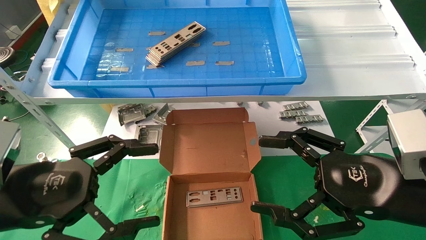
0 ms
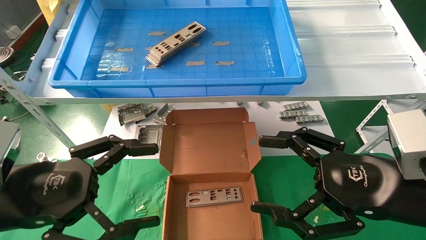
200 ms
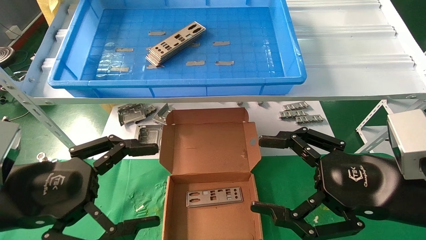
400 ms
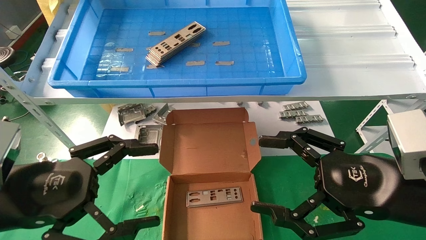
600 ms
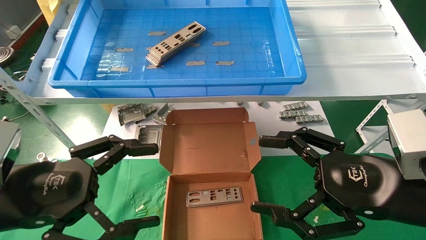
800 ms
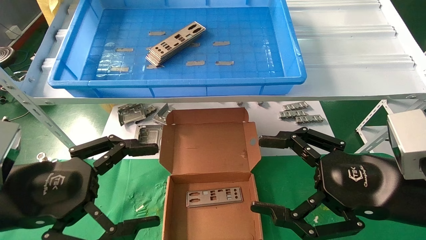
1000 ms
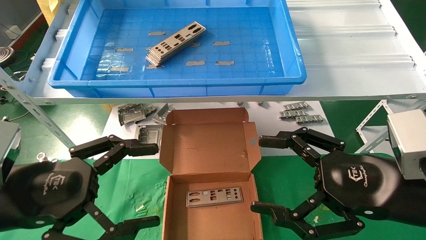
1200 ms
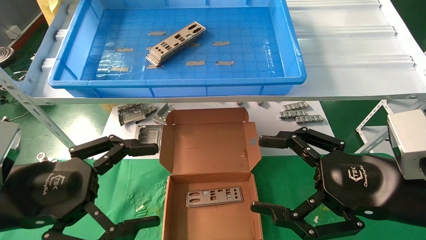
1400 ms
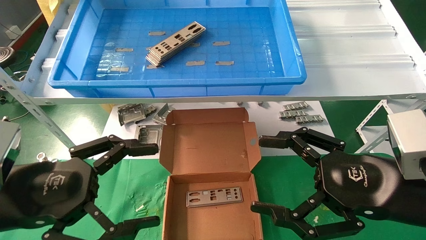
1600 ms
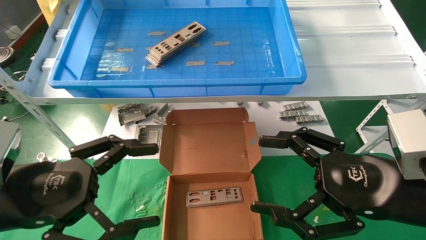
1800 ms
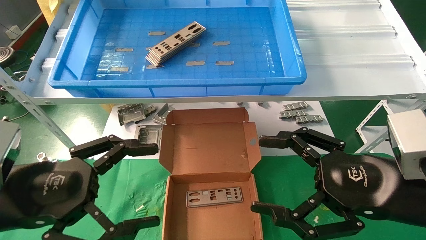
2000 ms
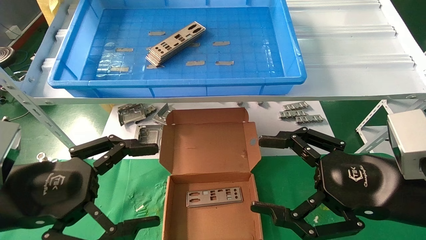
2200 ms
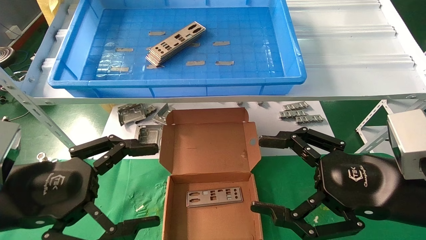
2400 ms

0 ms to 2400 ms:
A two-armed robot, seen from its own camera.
Task of the whole recording: pick up the parts on the tray and put them in the cardboard box.
0 ms to 2400 ms: Both grippers stay put.

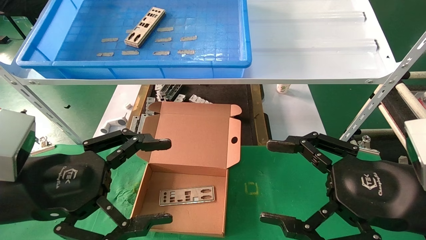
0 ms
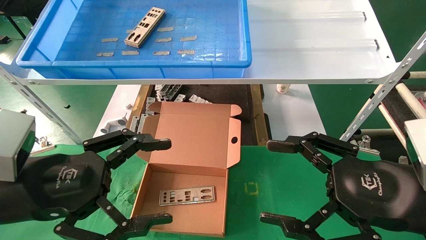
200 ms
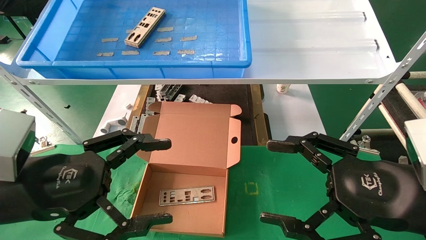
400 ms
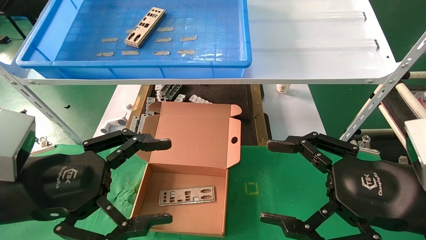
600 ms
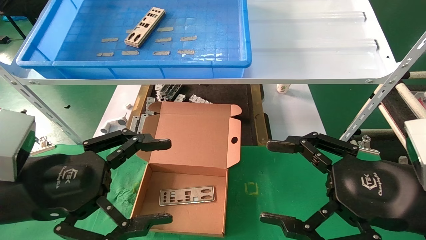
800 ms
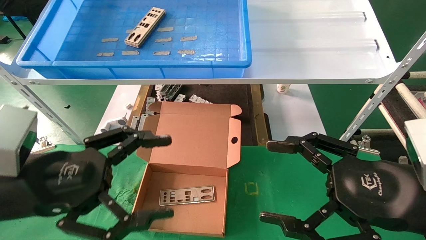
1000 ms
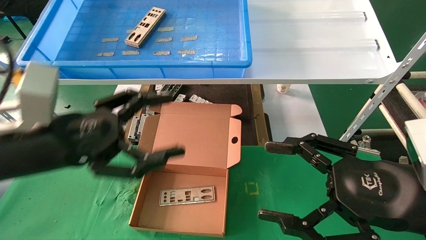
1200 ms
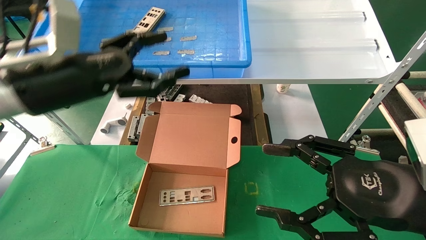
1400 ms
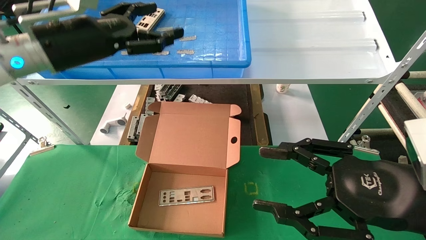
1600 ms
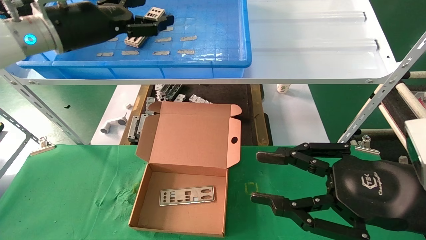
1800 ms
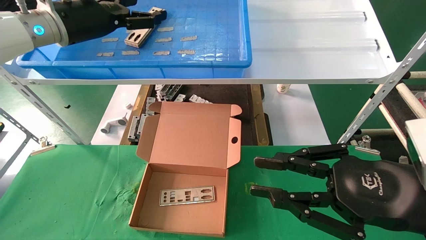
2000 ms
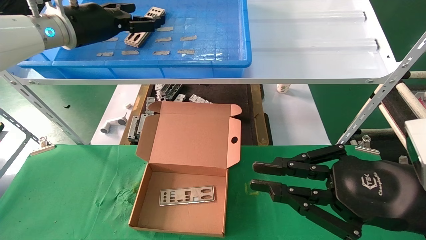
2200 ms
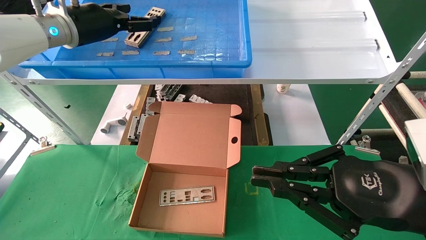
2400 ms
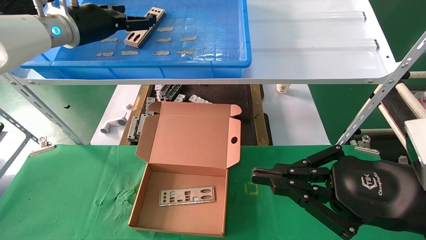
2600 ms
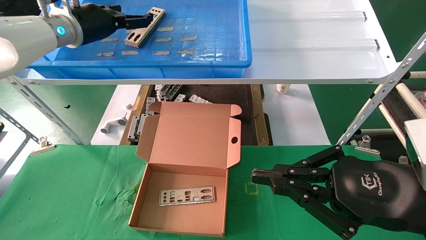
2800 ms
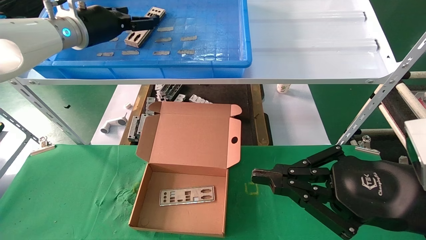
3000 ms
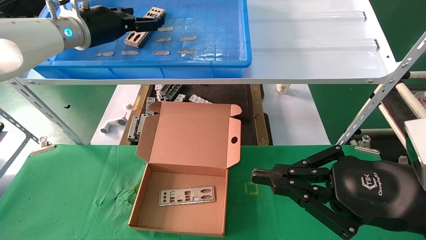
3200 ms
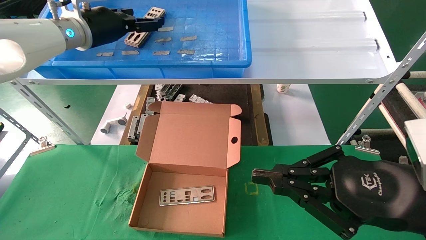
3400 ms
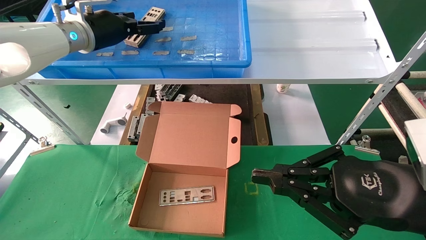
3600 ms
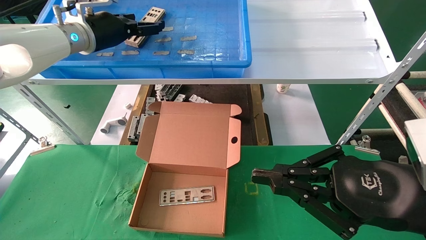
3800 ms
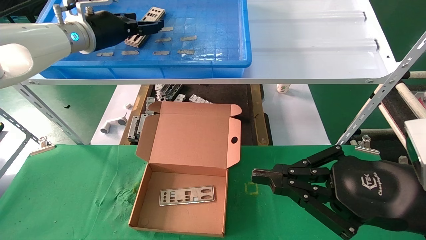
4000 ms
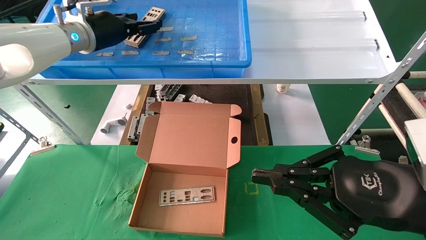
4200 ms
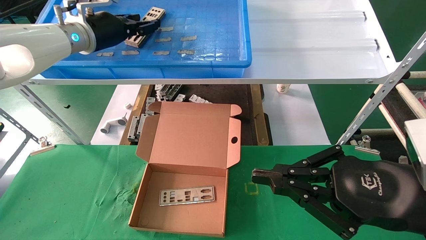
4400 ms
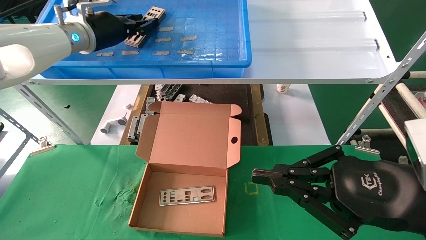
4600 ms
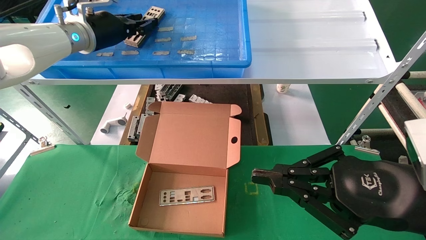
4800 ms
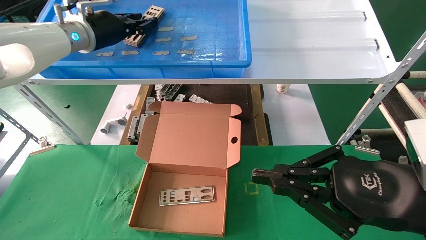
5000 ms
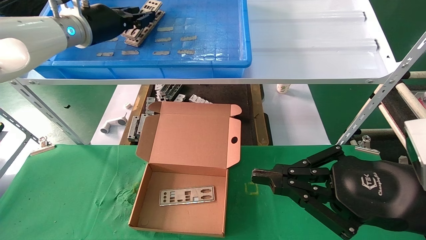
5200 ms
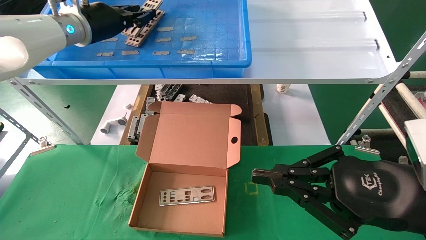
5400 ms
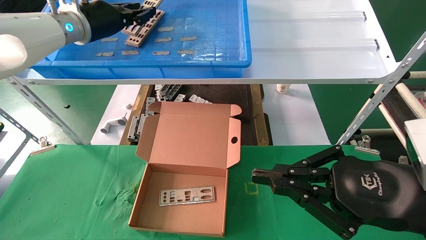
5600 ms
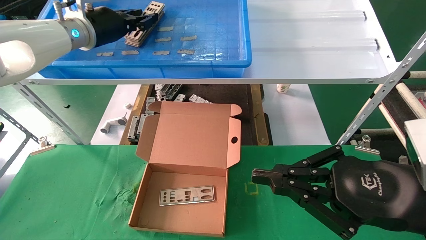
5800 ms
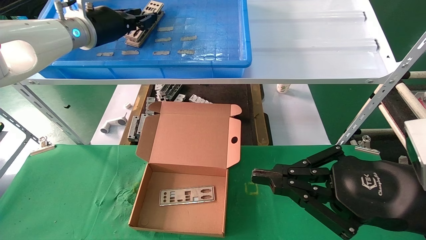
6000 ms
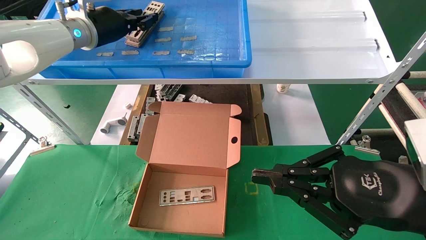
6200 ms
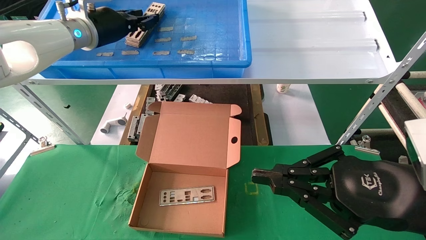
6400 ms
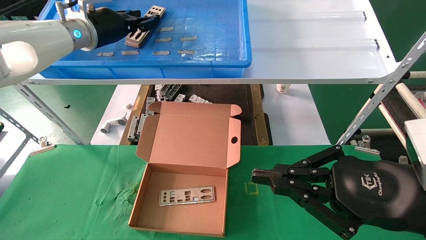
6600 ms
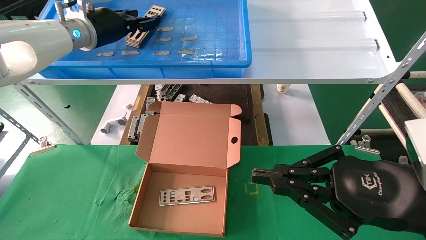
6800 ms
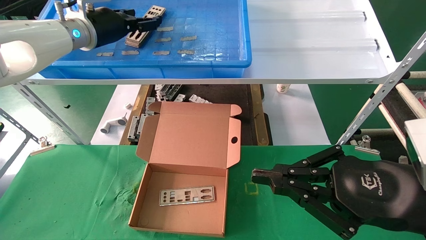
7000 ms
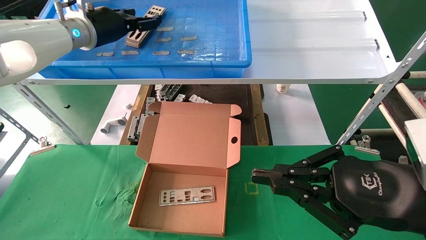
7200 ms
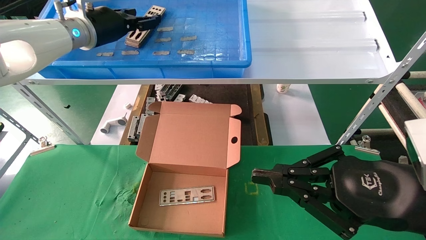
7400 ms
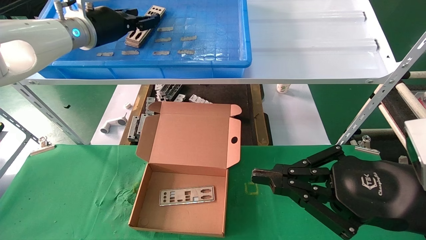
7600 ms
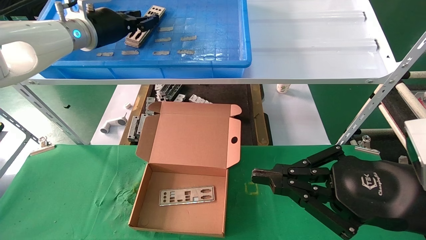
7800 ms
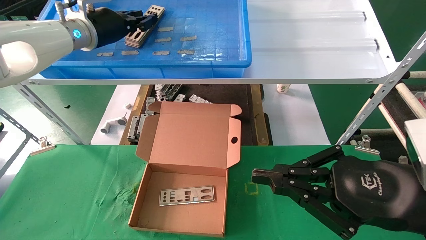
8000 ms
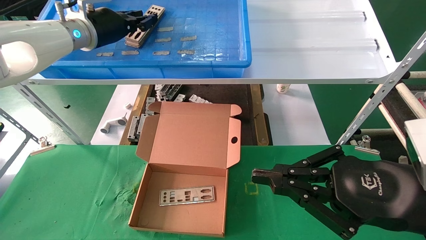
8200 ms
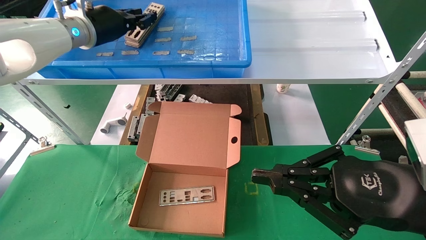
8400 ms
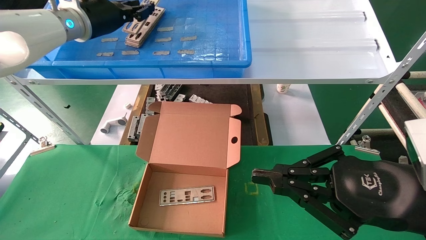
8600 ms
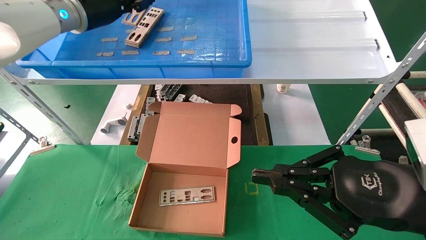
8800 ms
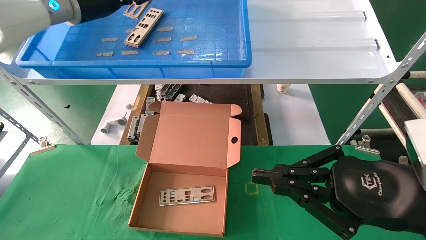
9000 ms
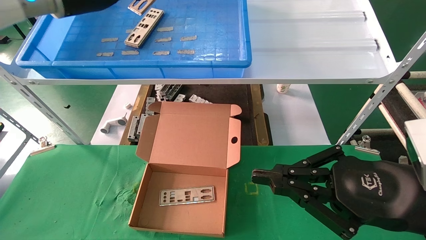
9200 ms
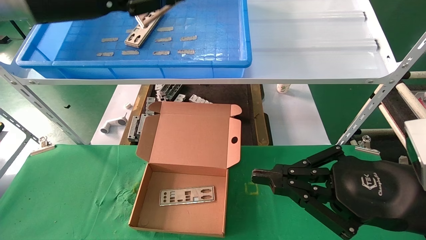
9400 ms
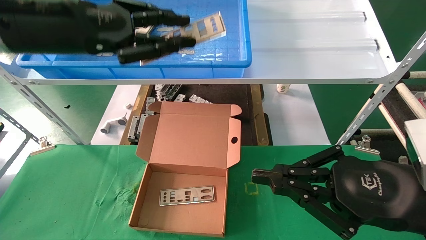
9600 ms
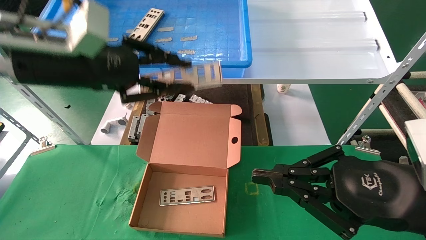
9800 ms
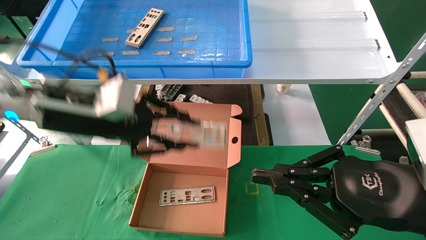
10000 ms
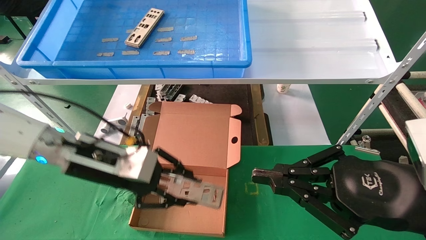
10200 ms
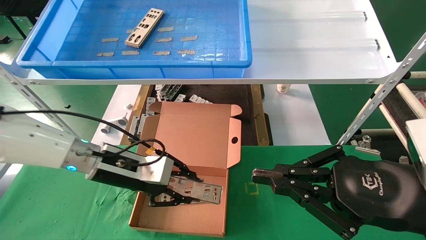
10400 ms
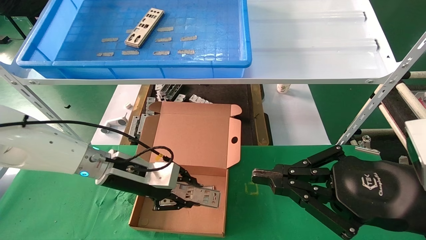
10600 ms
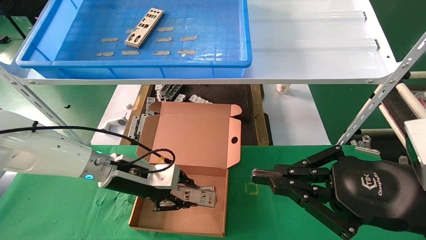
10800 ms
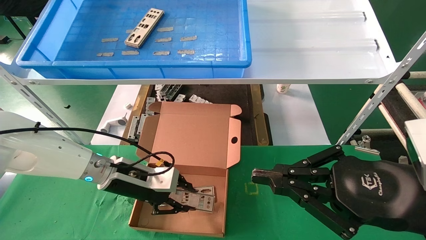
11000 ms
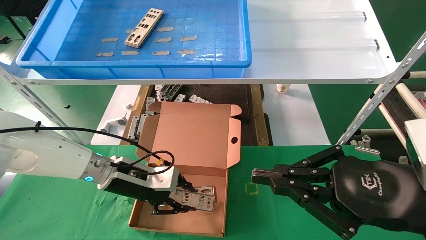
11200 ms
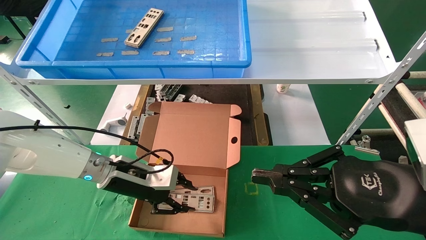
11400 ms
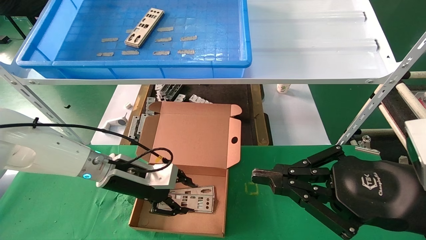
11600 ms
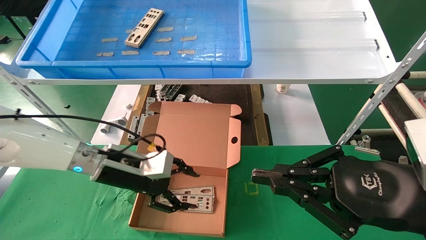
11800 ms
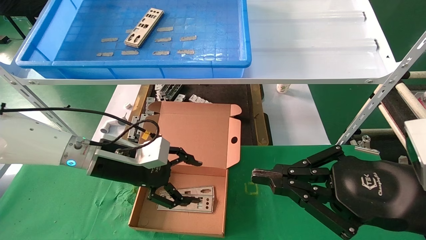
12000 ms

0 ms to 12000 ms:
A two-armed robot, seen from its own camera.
Task of the whole recording: pick up the parts on the tray and put them in the cardboard box.
Step, 1400 ms to 8600 ms: Pick up the IO bracket from the container box.
Step, 8800 ms to 11600 ms: Place the IO bracket into the ingredient slot.
0 ms to 1600 ms: The left gripper goes roughly 20 cm forward and upward.
1600 ms to 3000 ms: The right gripper closes up, while the left gripper is displaced forward by about 10 cm.
3000 ms to 4400 ms: The left gripper closes its fingers.
4400 ms to 6000 ms: The left gripper closes.
7600 ms to 9000 ms: The left gripper shifts by approximately 5 cm, and closes up.
9000 ms to 10400 ms: The left gripper goes about 25 cm downward.
10400 ms to 12000 ms: The left gripper opens up.

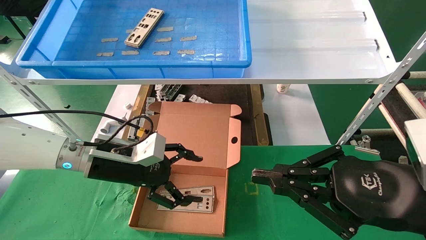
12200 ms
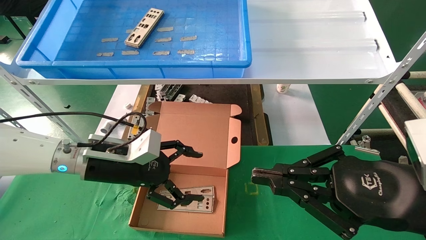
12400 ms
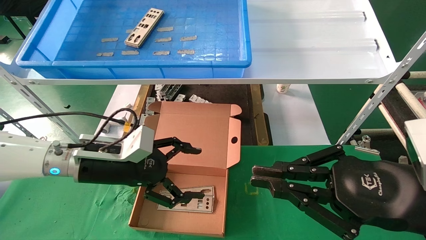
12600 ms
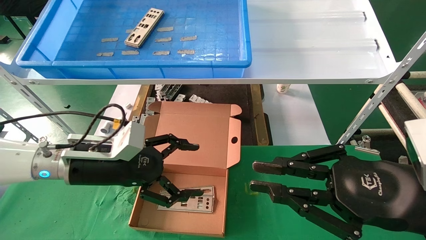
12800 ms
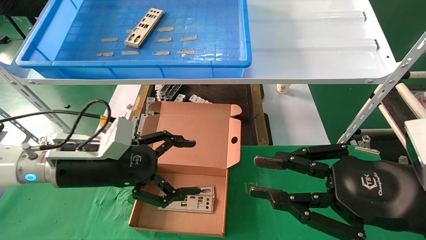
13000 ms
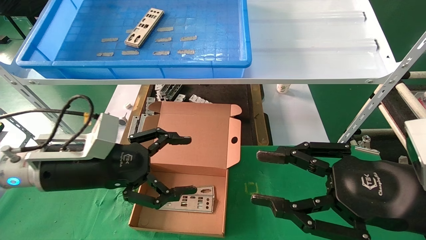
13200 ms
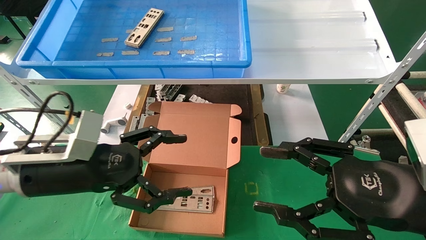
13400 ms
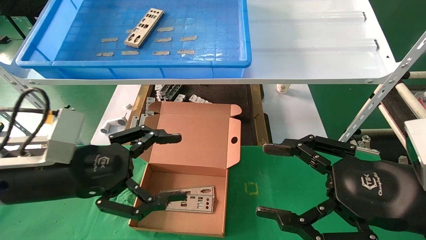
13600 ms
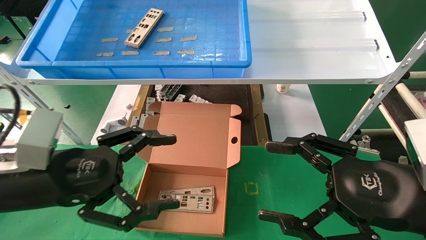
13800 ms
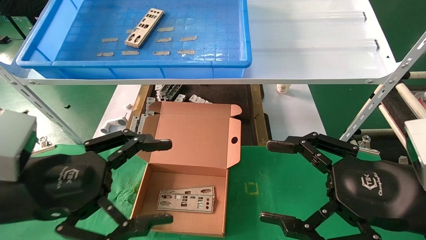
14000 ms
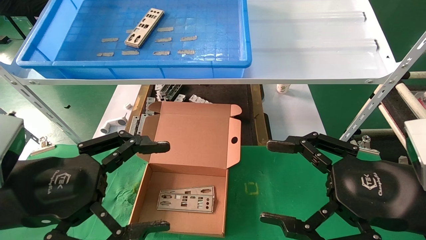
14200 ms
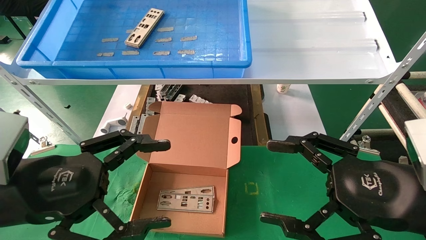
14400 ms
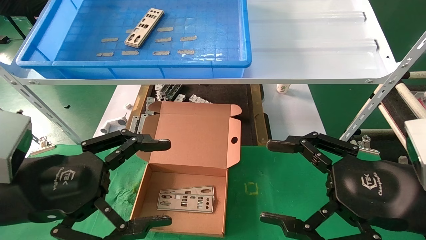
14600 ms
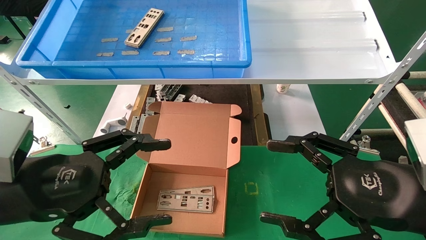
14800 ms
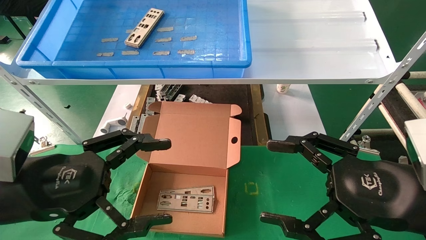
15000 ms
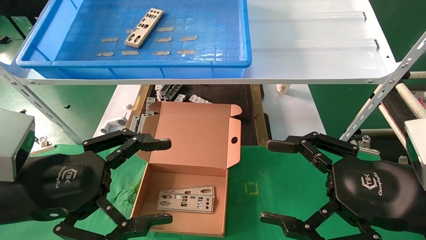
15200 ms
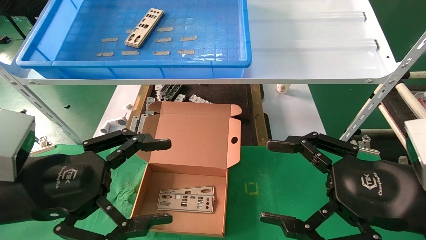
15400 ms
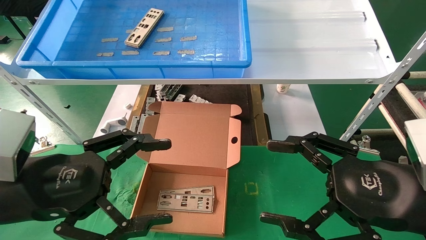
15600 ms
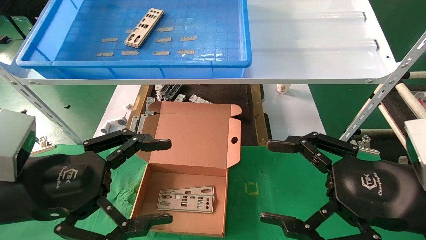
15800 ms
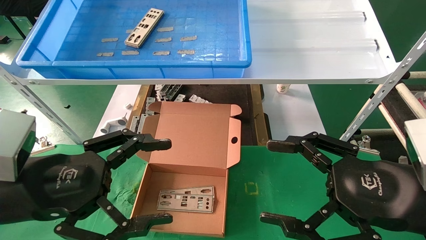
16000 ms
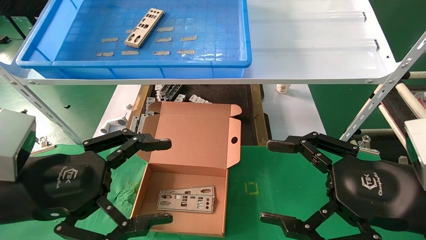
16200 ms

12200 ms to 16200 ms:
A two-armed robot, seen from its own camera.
Task of the whole recording: pick up the parts on the tray and put them in the cardboard box.
12200 ms to 13600 ms: The left gripper travels backward by some 10 cm. Meanwhile the right gripper opens.
13600 ms to 14800 ms: The left gripper goes some 5 cm backward.
14800 ms to 16200 ms: Both grippers stay put.
